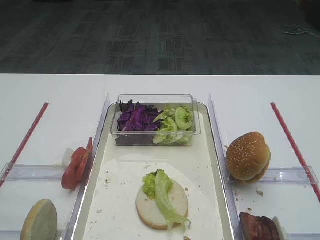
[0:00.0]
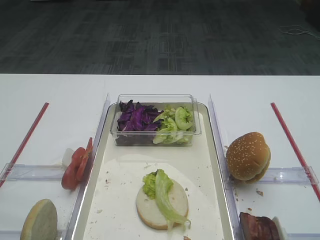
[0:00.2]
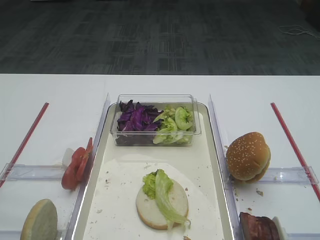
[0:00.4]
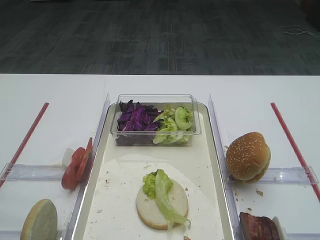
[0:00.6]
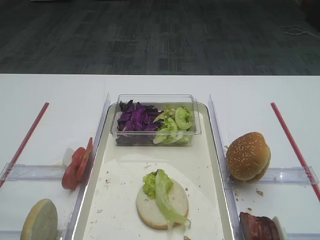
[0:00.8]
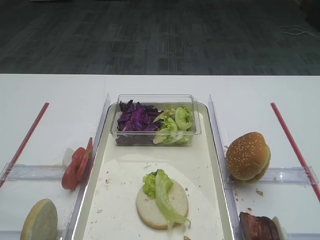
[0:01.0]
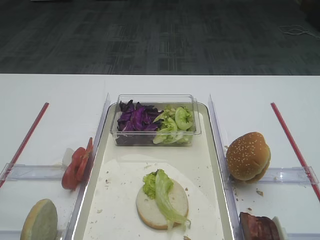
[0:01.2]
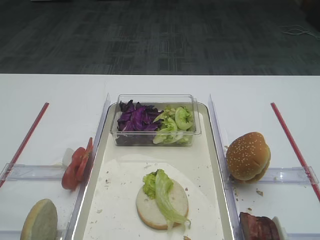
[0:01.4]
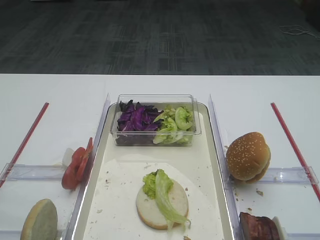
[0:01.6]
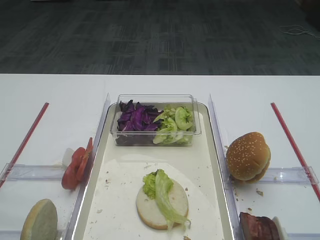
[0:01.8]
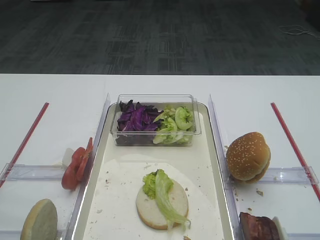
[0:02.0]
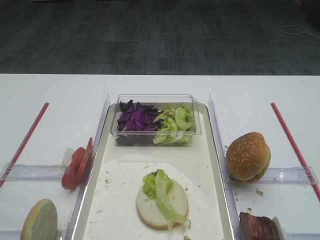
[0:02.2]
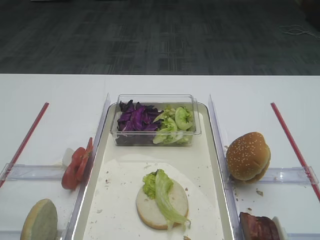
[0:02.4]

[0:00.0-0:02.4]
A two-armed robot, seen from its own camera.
0:01.2 to 0:02.4: Both grippers stay about where they are.

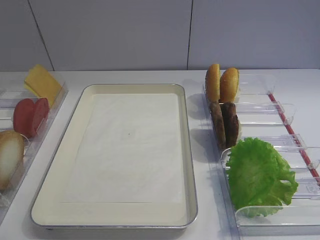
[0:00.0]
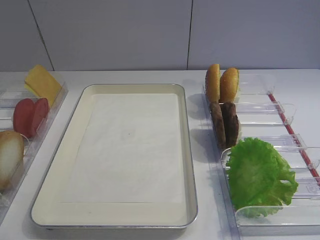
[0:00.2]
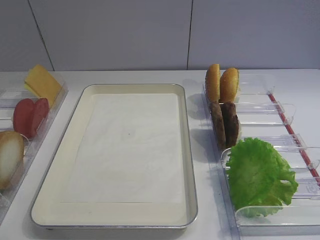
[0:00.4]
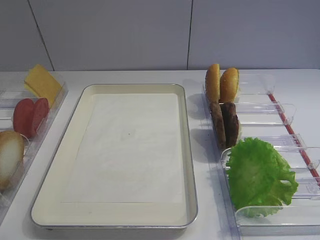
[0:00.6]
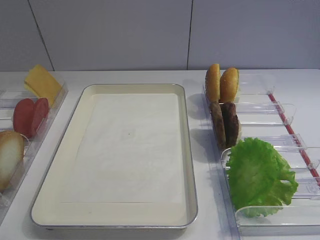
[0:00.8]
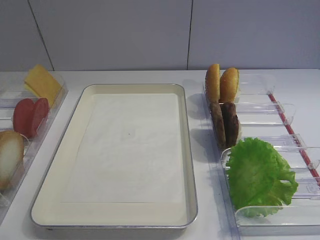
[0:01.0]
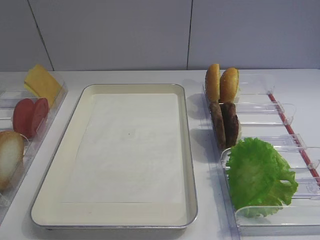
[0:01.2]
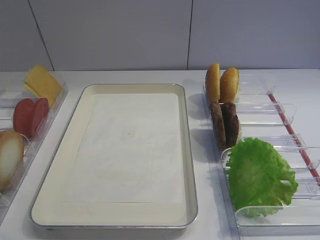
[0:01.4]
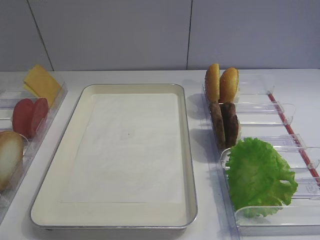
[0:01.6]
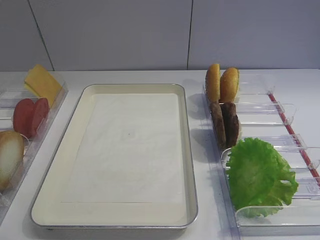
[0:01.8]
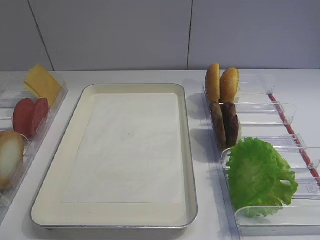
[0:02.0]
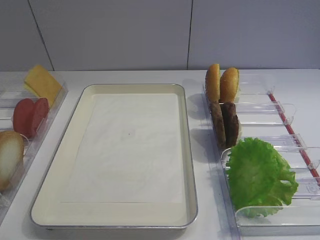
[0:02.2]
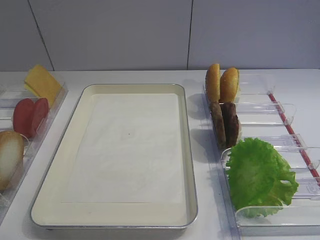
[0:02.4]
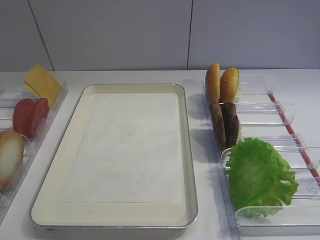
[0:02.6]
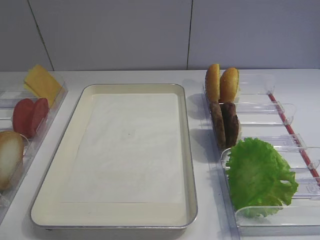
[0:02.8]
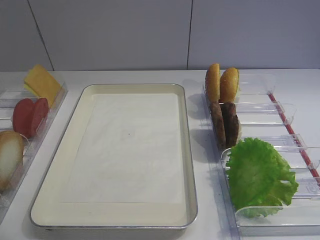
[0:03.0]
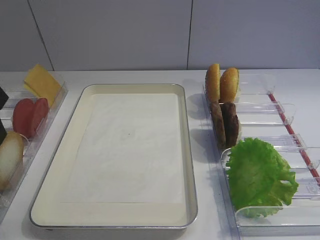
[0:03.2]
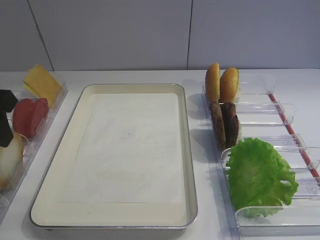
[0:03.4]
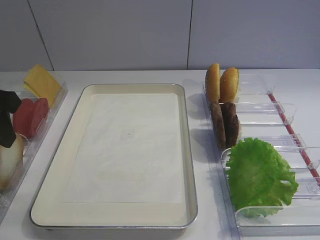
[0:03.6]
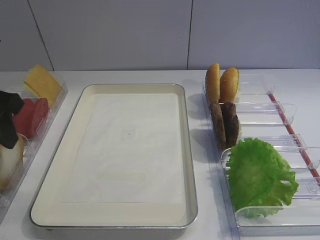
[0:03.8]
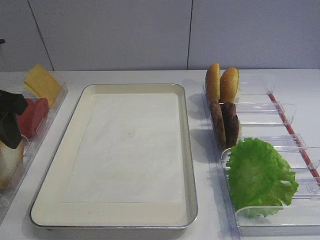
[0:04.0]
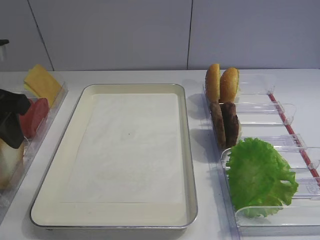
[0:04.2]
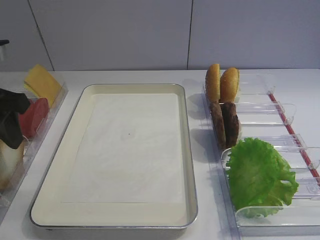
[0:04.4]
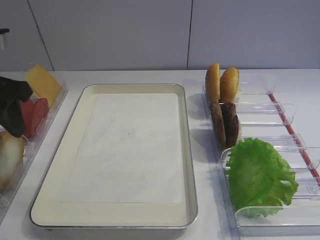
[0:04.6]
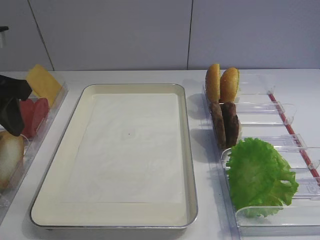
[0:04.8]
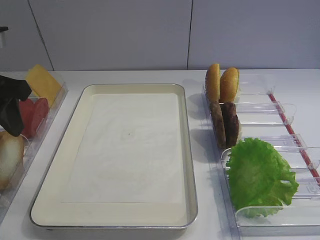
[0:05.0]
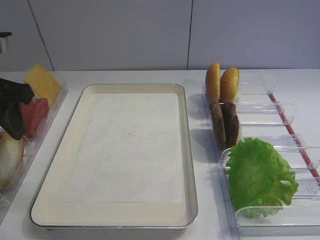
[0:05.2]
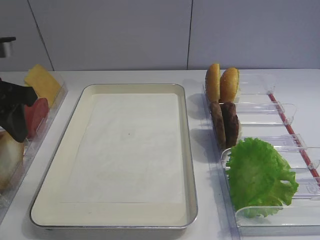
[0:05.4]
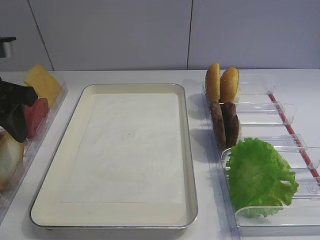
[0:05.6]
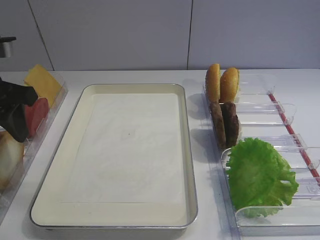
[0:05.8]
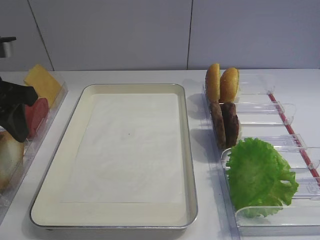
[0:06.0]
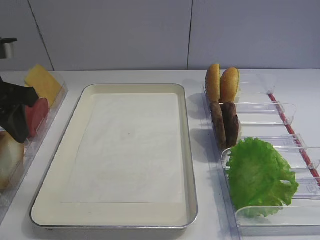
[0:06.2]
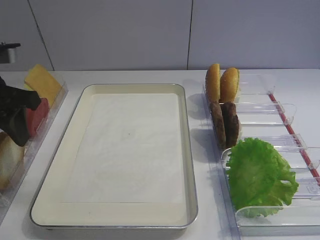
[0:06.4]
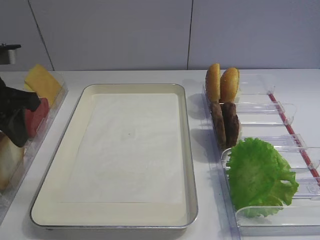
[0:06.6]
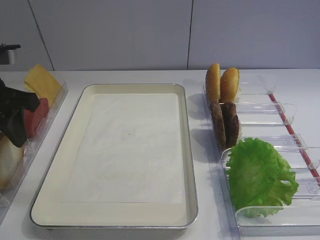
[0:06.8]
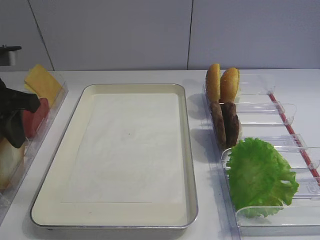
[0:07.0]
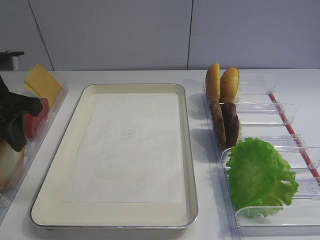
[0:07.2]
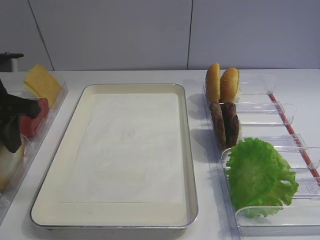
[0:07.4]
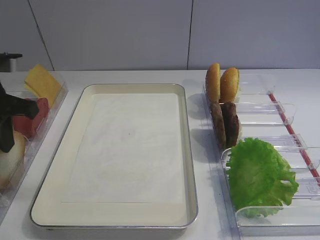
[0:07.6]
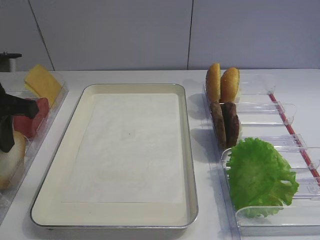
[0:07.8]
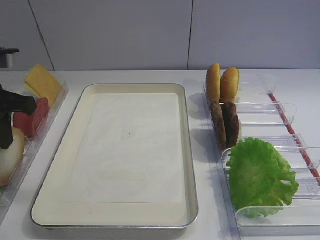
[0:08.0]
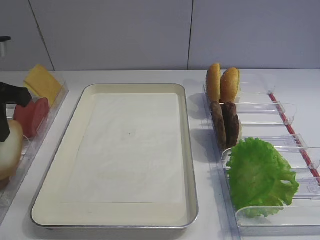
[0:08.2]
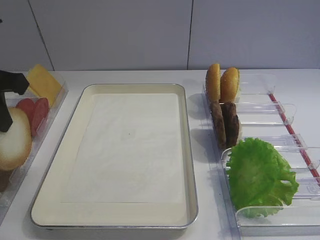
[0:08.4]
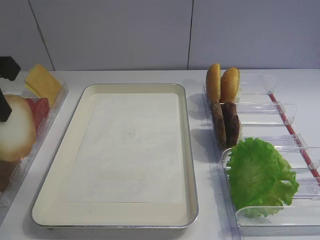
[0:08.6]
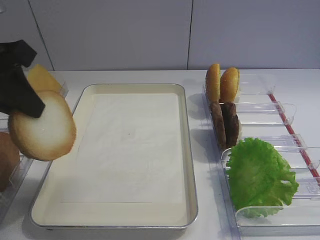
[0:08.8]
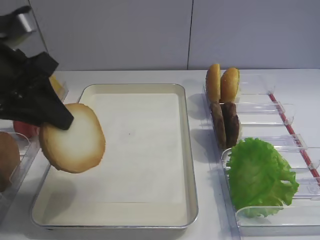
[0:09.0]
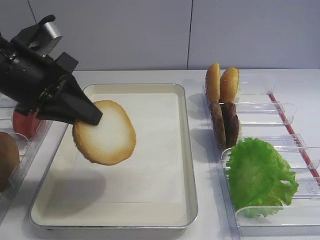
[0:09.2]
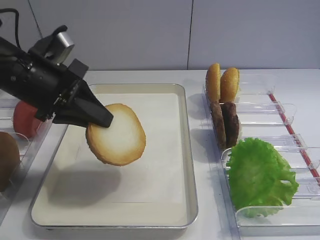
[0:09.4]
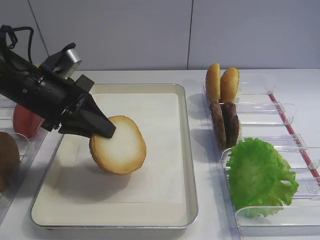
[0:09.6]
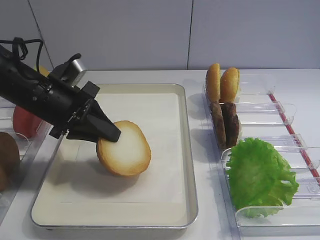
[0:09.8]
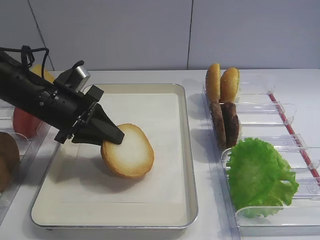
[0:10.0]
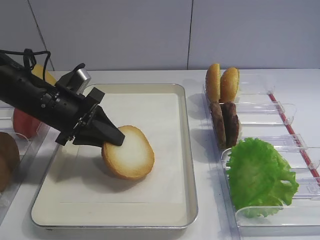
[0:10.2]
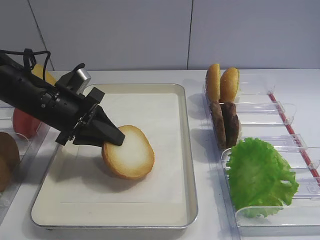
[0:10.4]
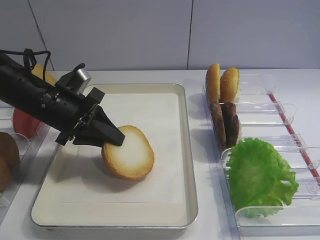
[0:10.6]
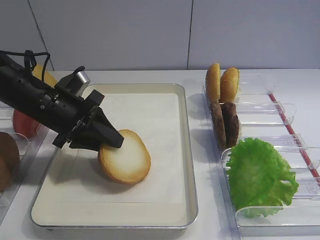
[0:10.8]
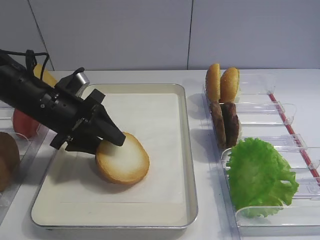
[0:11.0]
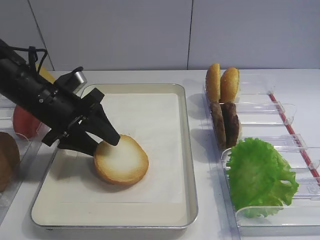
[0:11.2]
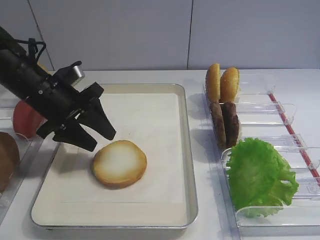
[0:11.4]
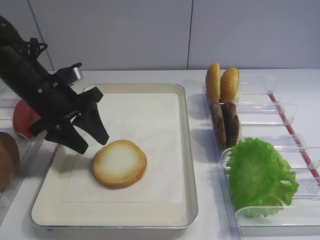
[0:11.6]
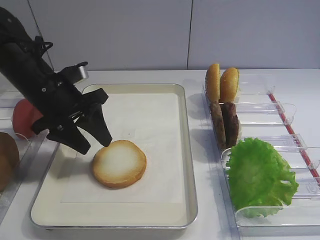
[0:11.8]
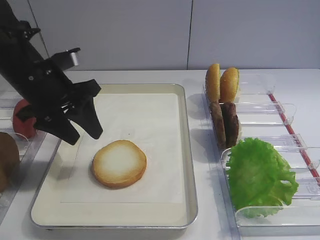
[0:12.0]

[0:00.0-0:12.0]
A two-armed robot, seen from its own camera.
Step, 0:00.0 to 0:08.2: Pick up the bread slice with the left gripper.
Step, 0:08.4 to 0:11.8: Place the bread slice on the tray with the left gripper.
0:03.0 to 0:04.4: The left gripper shifts by some 5 cm.
0:04.4 to 0:06.0: The grippers make only small movements.
0:06.0 to 0:07.6: The left gripper closes up.
0:07.6 to 0:09.0: The left gripper changes place by roughly 5 cm.
0:09.0 to 0:10.4: The left gripper is displaced downward and forward by roughly 15 cm.
0:10.4 to 0:12.0: The left gripper goes roughly 5 cm upward, and opens up.

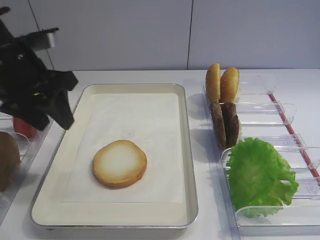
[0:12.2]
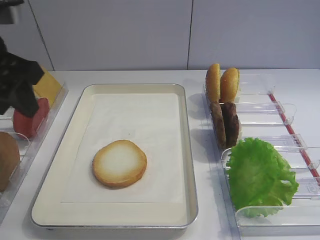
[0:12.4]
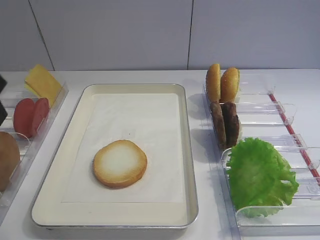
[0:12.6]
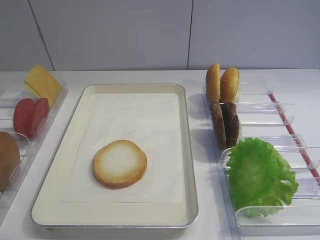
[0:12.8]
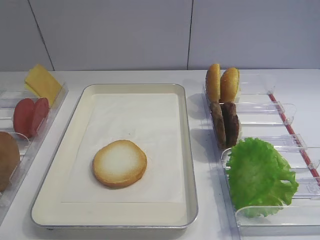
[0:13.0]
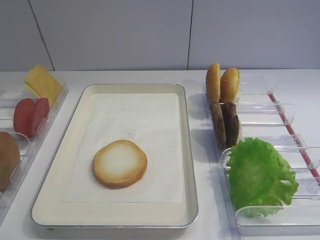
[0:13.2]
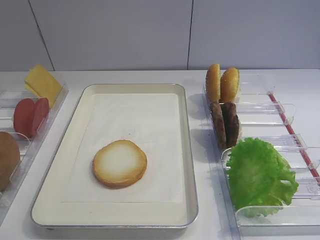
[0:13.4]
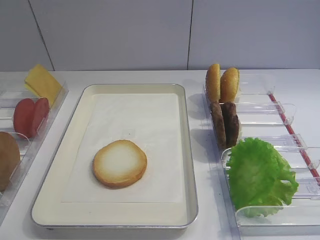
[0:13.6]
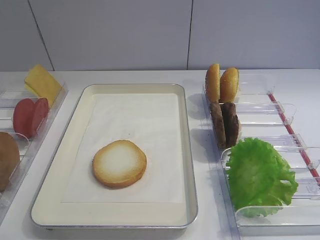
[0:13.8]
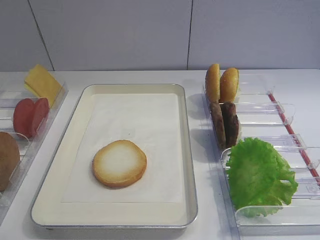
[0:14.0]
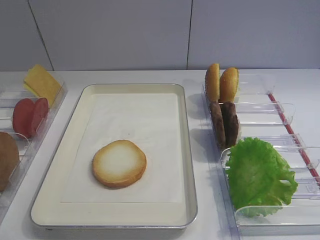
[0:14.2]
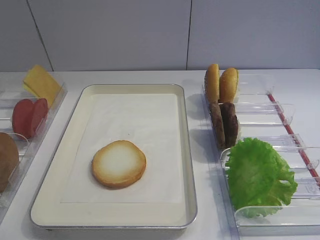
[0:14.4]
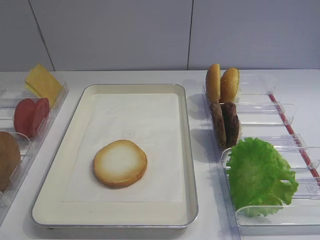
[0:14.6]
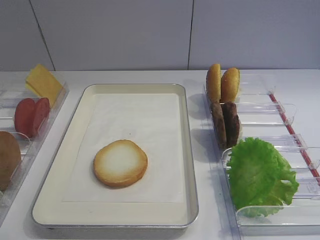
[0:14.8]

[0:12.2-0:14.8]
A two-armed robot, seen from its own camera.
0:12.2 to 0:13.4: The left gripper moves backward, roughly 25 cm.

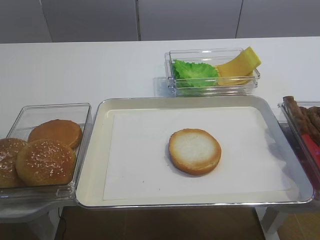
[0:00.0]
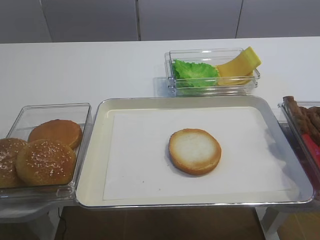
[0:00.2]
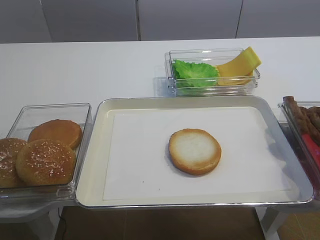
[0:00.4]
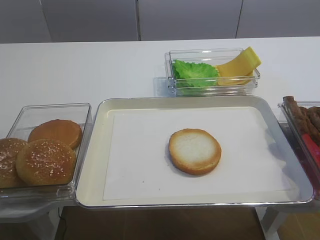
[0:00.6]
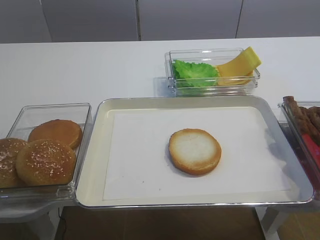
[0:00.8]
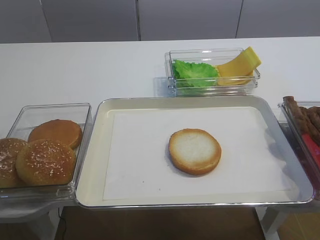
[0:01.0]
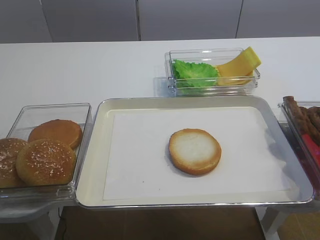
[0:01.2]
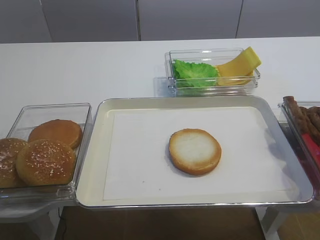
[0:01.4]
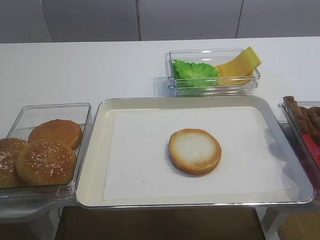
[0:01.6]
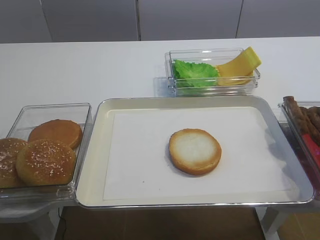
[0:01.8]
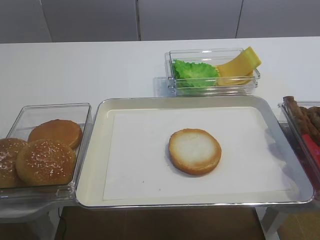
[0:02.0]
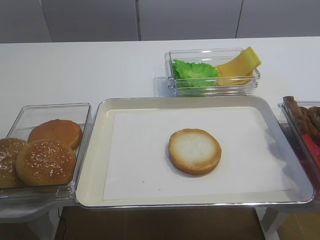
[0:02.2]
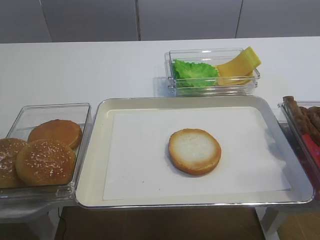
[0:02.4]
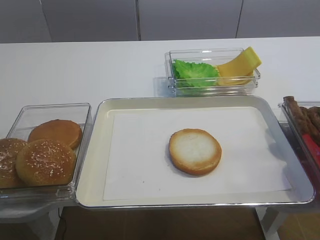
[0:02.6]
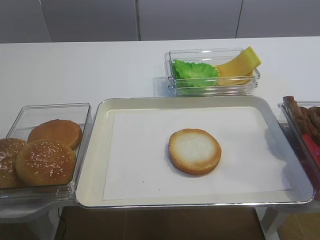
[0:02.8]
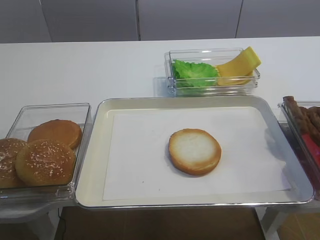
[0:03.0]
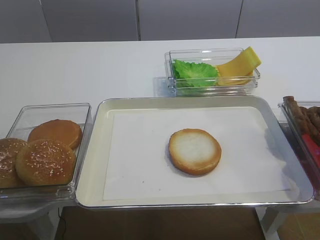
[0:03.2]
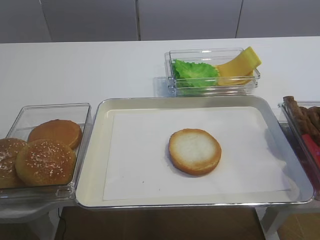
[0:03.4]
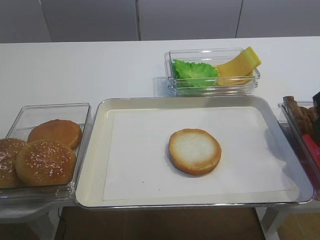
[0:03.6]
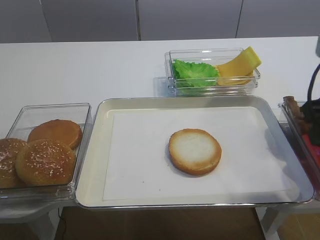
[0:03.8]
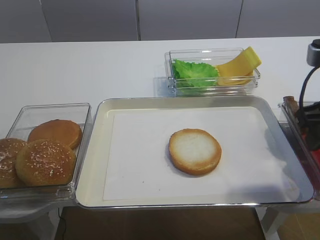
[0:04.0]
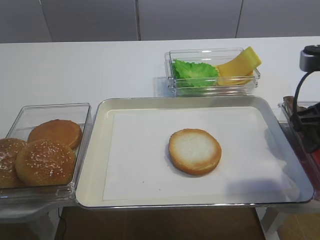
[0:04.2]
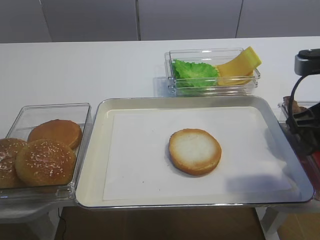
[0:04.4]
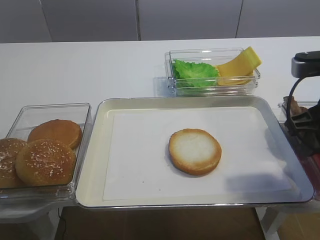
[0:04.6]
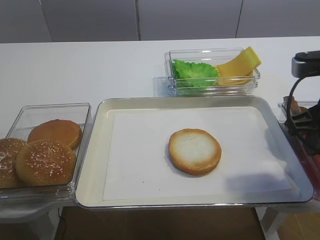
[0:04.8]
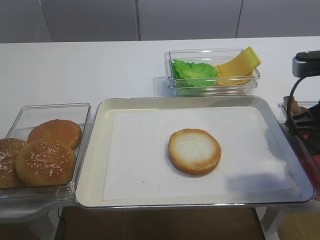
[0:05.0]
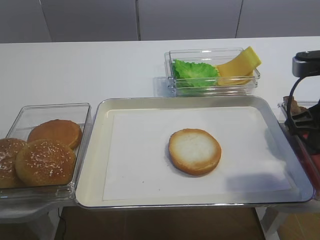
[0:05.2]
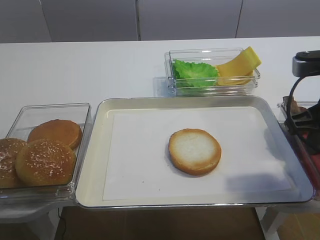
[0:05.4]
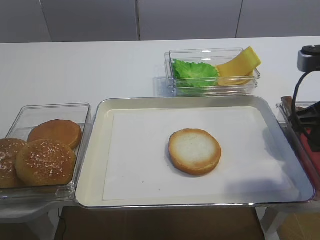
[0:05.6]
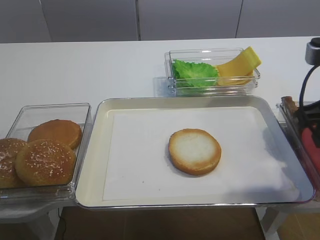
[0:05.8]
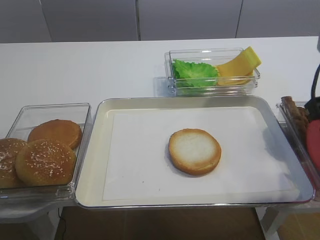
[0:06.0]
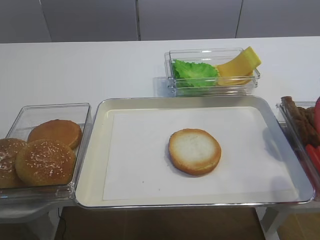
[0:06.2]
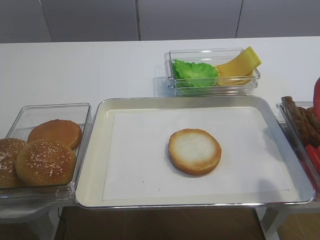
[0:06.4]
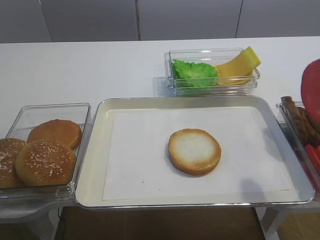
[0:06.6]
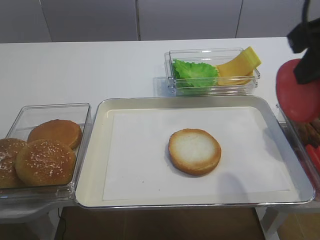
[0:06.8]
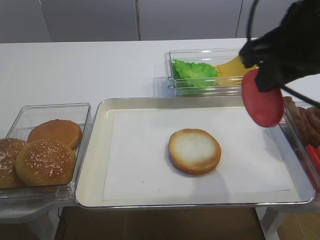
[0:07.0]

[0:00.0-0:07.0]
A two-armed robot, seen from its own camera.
Step, 0:00.0 to 0:06.2: Pick up the tomato slice with the right gripper.
0:02.8 to 0:04.2: The right gripper travels forward and downward by approximately 15 cm.
0:04.2 to 0:05.6: The right gripper closes.
0:05.6 to 0:07.0: The right gripper moves upward and to the left, some 10 cm.
